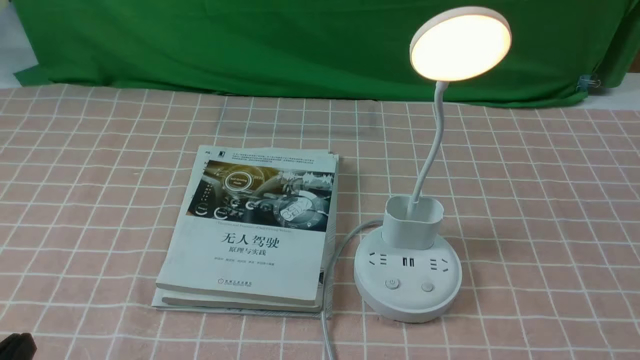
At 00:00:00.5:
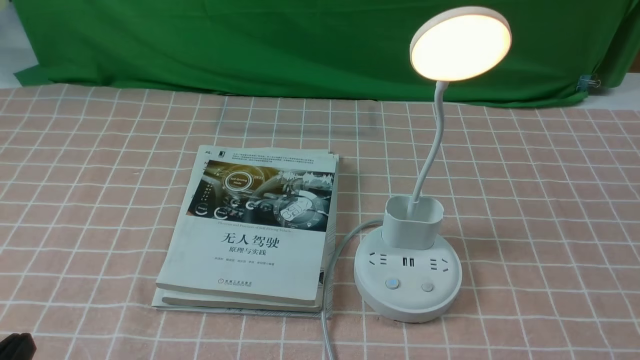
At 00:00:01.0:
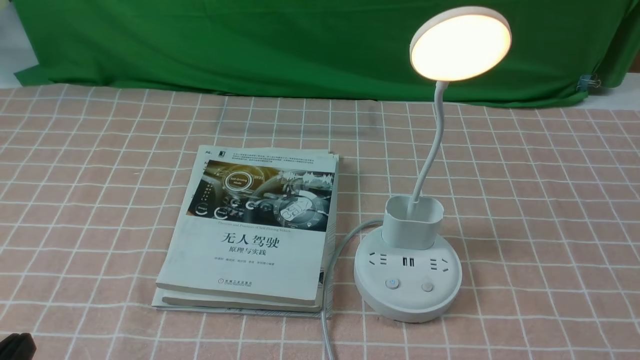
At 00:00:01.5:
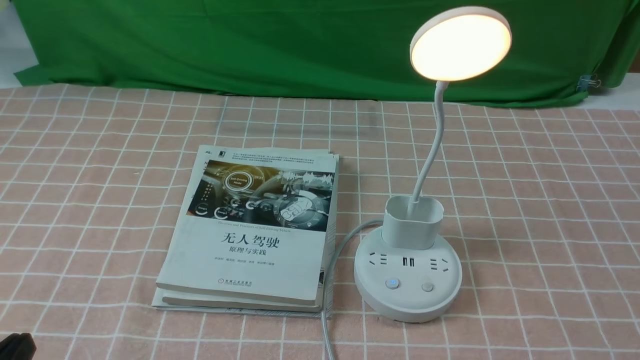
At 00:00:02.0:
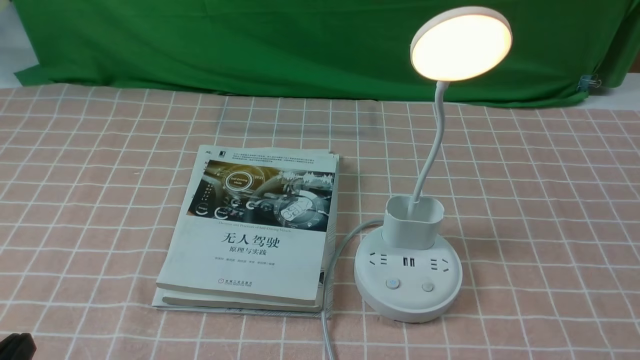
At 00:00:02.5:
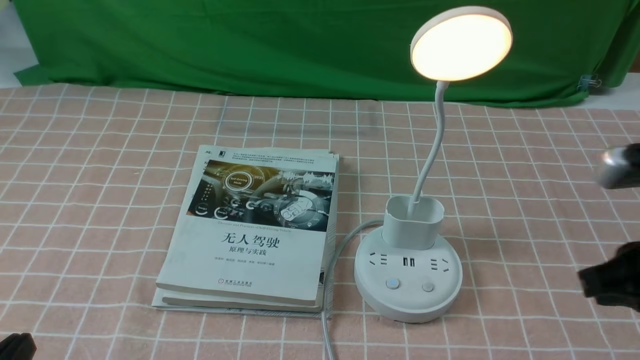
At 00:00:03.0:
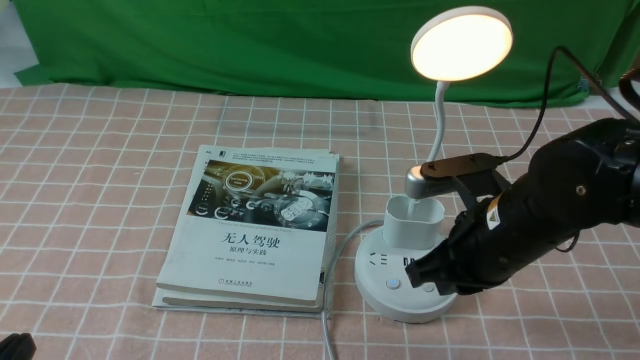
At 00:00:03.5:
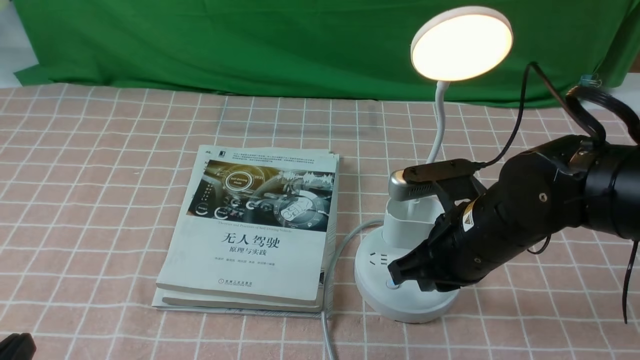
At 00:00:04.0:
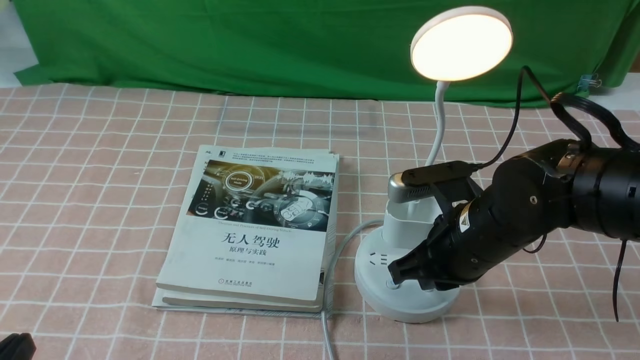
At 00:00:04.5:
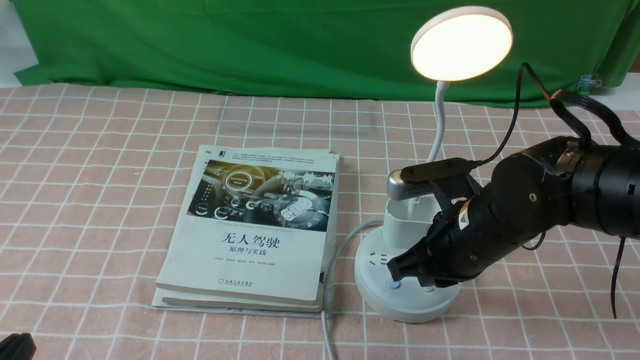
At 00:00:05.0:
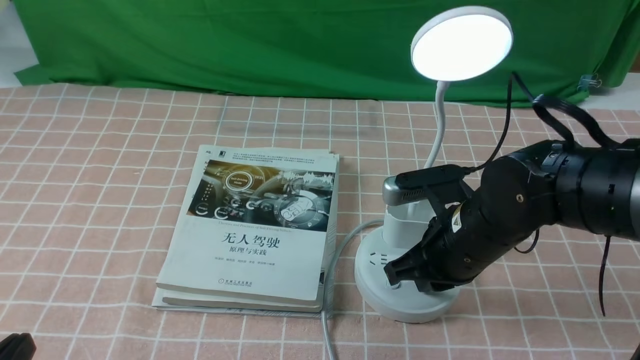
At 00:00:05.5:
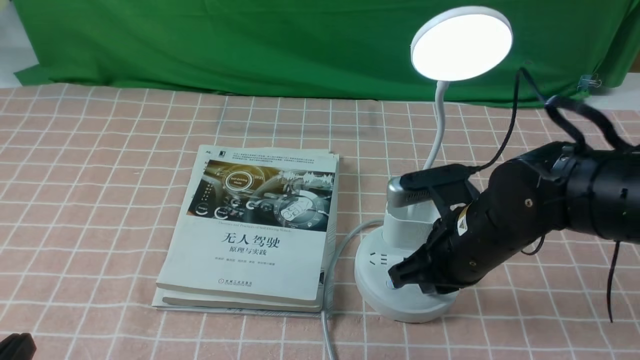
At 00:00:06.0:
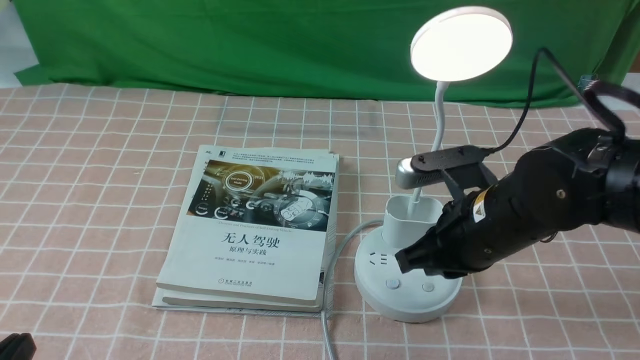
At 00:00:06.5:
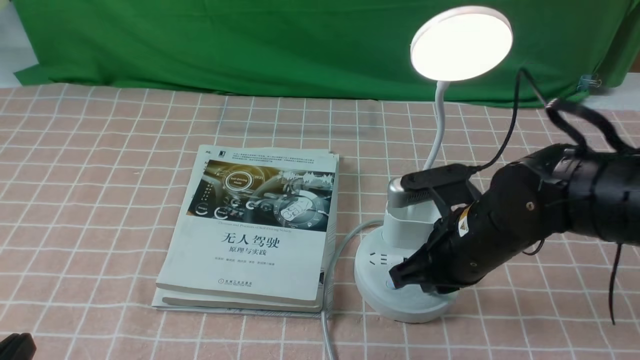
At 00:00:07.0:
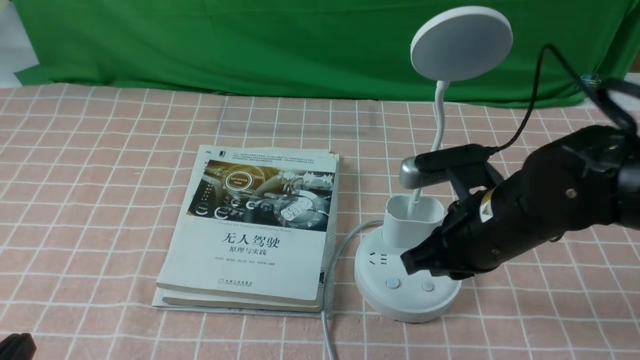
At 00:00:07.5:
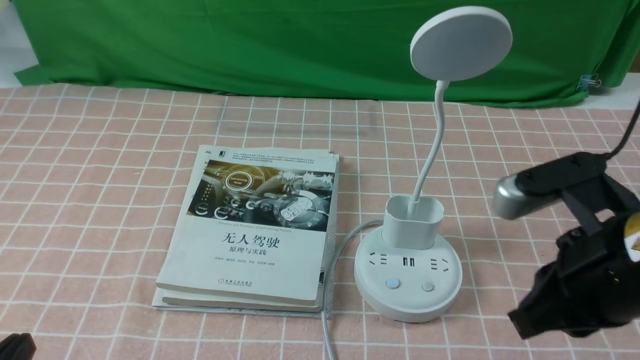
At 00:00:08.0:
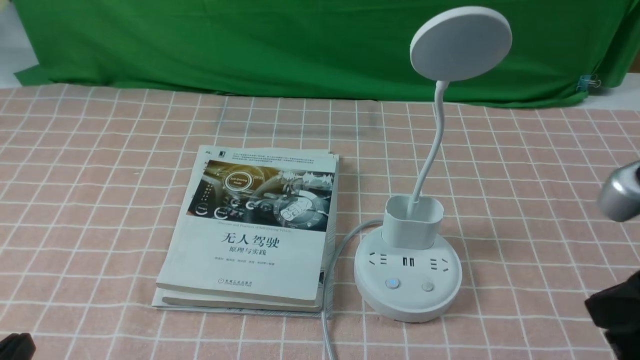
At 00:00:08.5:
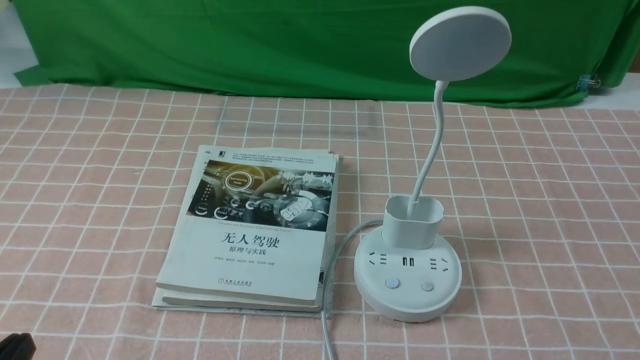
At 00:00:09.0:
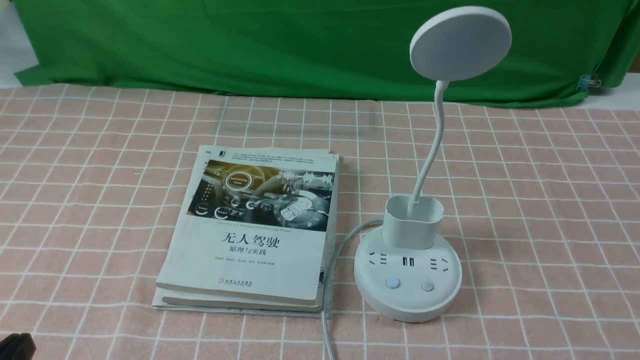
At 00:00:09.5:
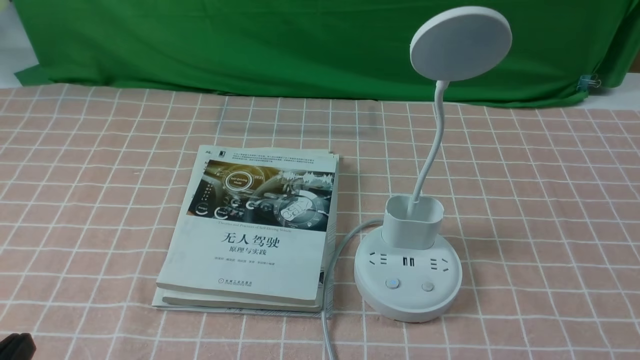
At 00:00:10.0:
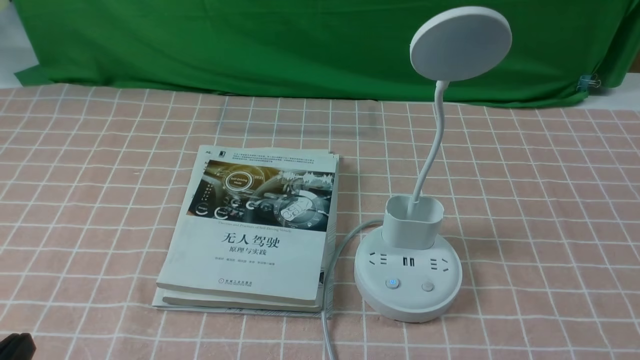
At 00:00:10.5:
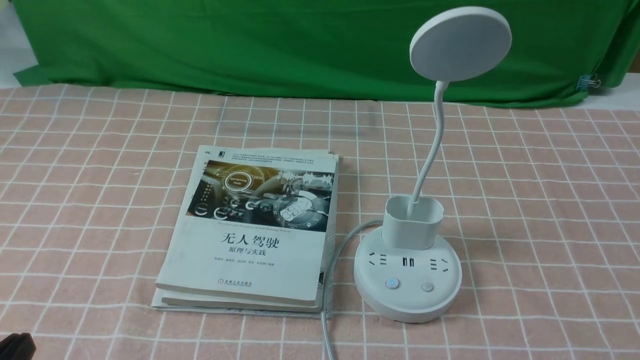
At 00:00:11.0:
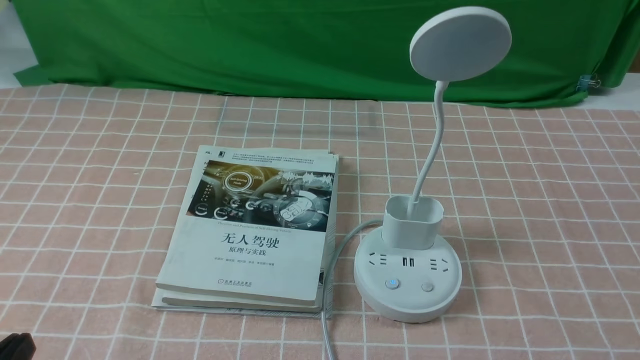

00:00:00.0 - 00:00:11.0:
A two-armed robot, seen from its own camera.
Task of the whole recording: turn off the table lamp on the pink coffee tablecloth by hand.
Step, 00:00:00.0 - 00:00:06.5: use the right arm to press the button switch on the lamp holder.
00:00:02.0 - 00:00:03.5: The right gripper heads forward and to the left, covering roughly 25 cm.
00:00:03.5 - 00:00:05.5: The grippers stay close to where they were, moving slightly.
00:00:05.5 - 00:00:07.5: The right gripper is displaced upward, backward and to the right by roughly 15 cm.
00:00:07.5 - 00:00:09.0: The right gripper travels backward, to the right and downward by some 20 cm.

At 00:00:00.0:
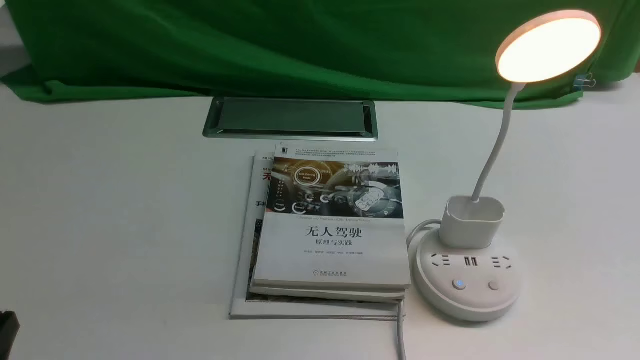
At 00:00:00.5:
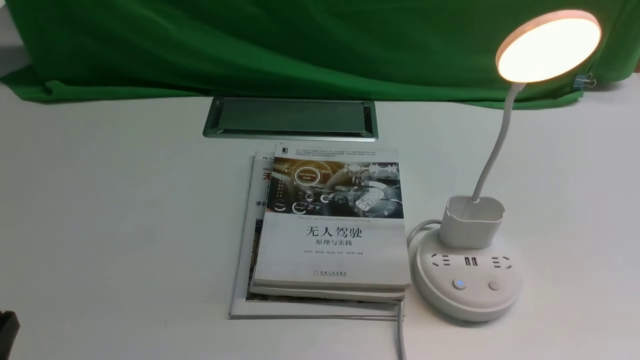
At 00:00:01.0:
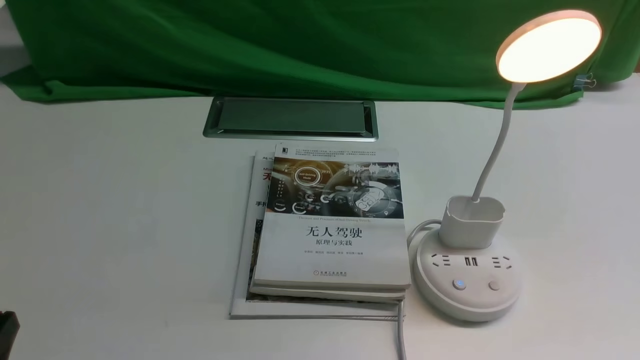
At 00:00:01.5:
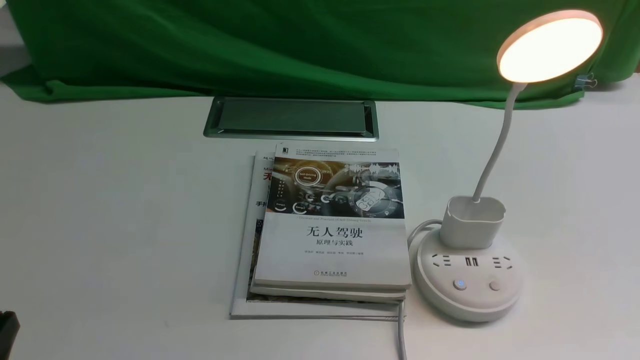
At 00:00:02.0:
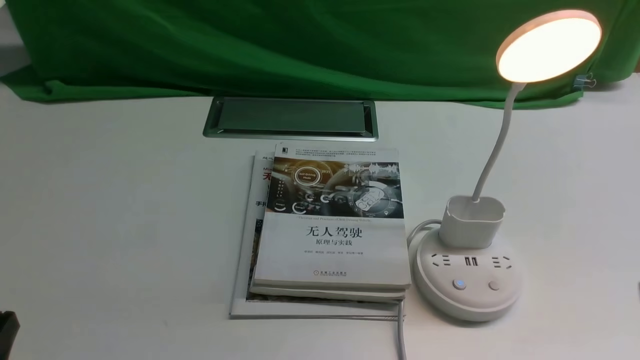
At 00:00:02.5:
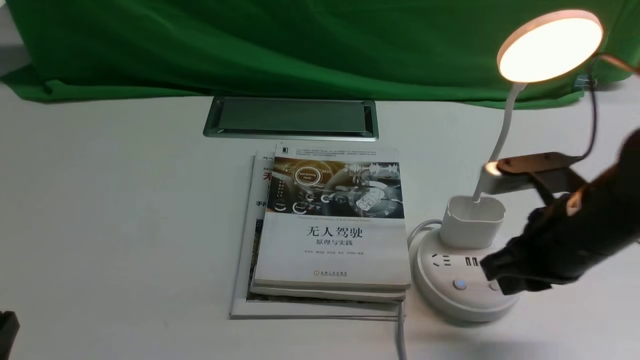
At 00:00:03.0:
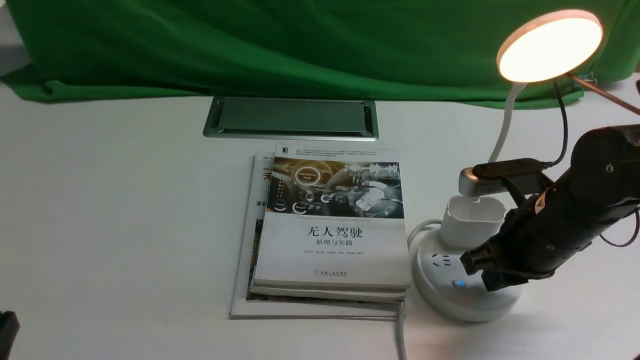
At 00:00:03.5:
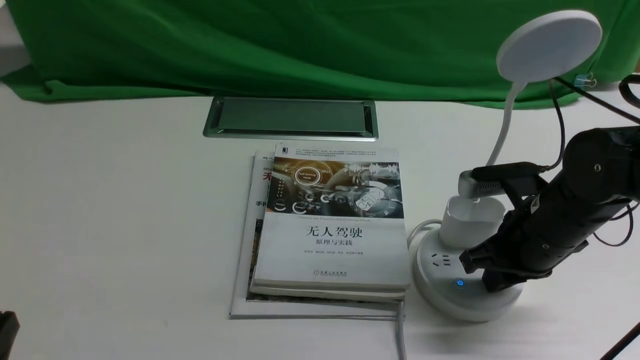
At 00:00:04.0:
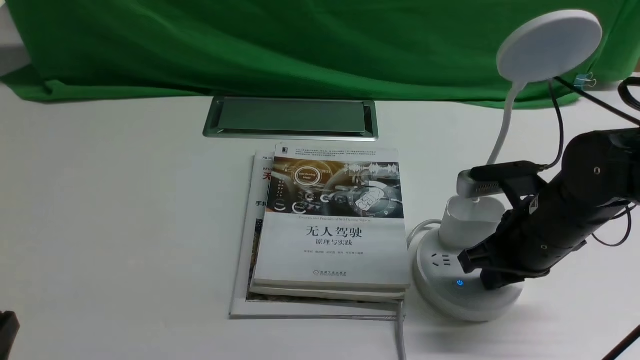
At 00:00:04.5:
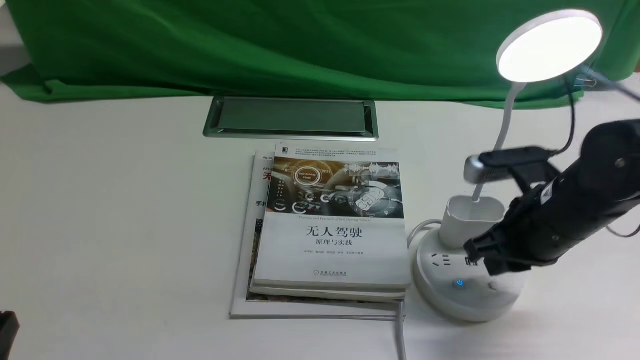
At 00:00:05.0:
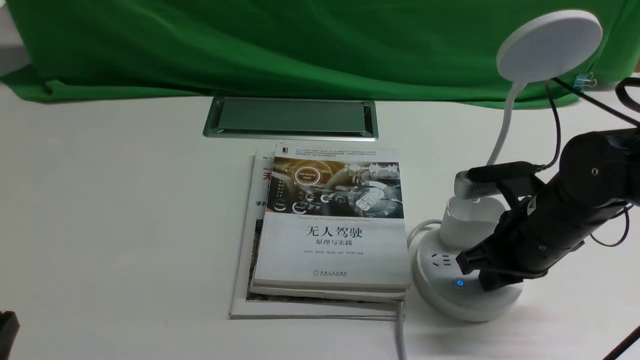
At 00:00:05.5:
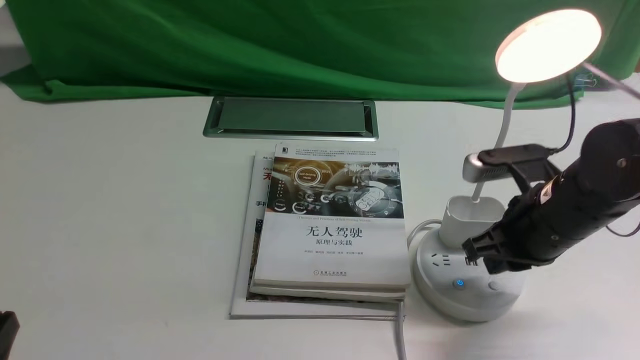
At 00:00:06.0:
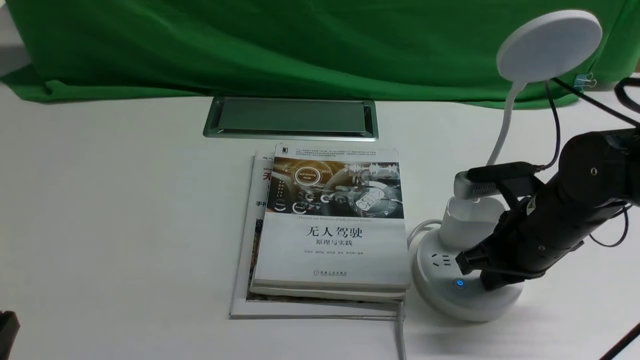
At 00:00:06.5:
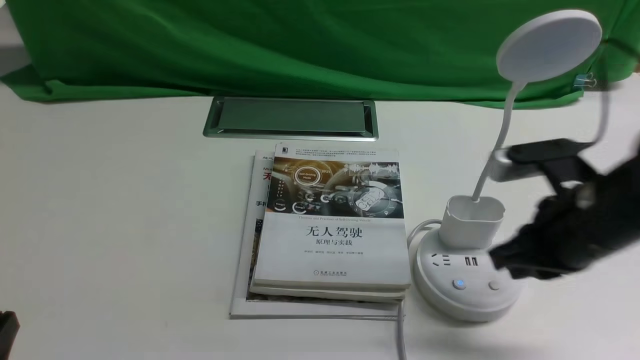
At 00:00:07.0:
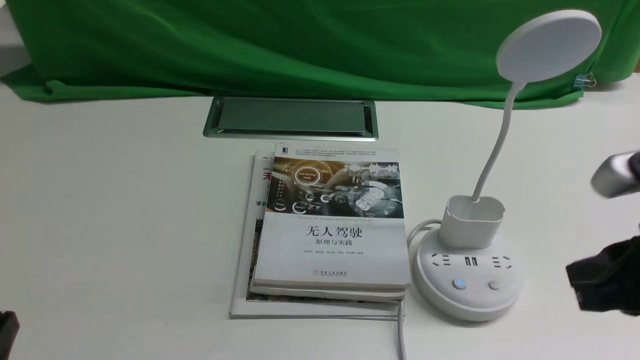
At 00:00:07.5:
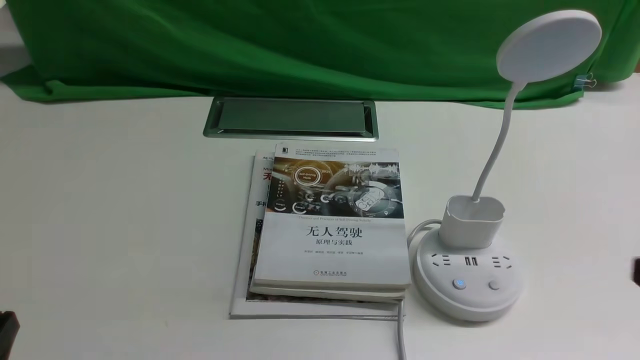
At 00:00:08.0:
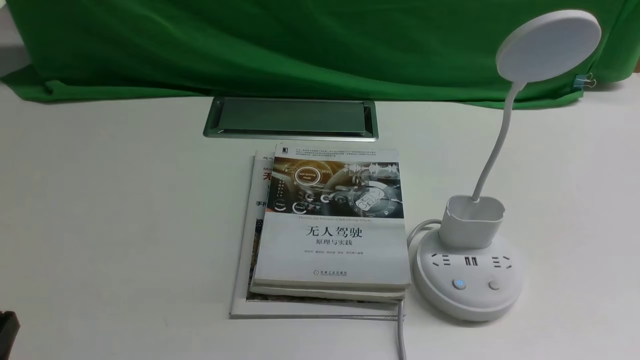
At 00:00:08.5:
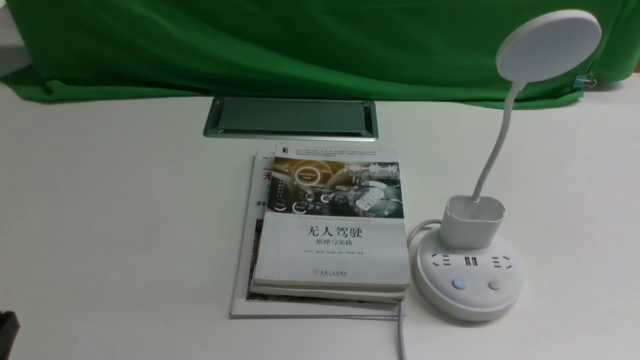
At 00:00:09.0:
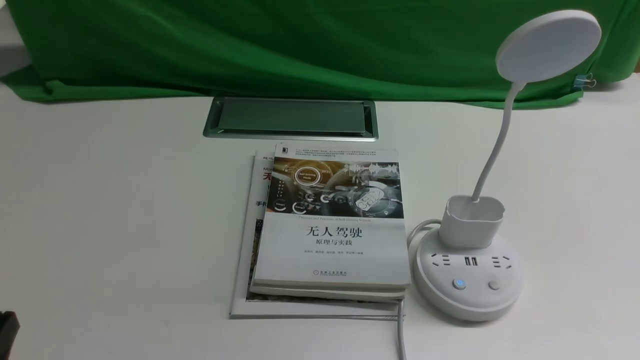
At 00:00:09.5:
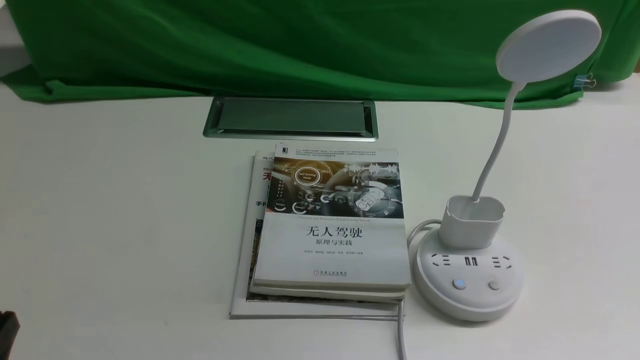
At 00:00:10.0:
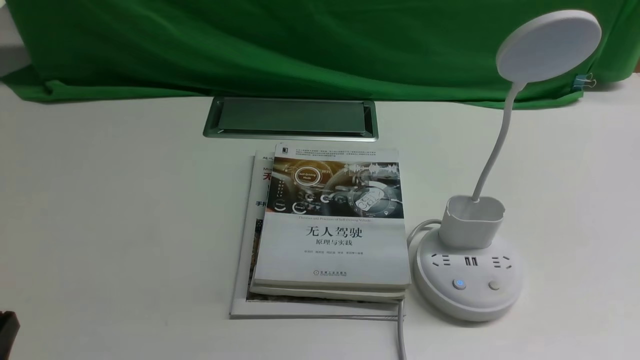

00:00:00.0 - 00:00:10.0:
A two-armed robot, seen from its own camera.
Task of the whole recording: turn off the desk lamp on the white desktop by hand.
Step, 00:00:00.0 - 00:00:06.0: use the right arm to press the button switch on the lamp holder.
00:00:02.0 - 00:00:04.0: The right gripper shifts about 20 cm forward, downward and to the left.
00:00:04.0 - 00:00:06.0: The right gripper closes up.
00:00:06.0 - 00:00:08.0: The right gripper travels backward and to the right by about 25 cm.
00:00:08.0 - 00:00:10.0: Both grippers stay put.
